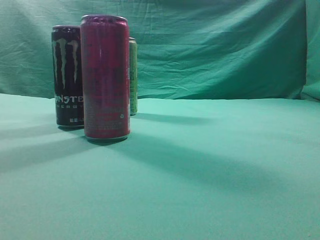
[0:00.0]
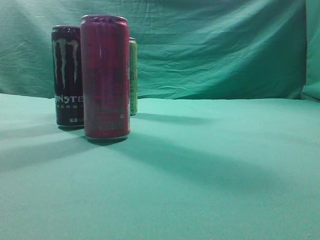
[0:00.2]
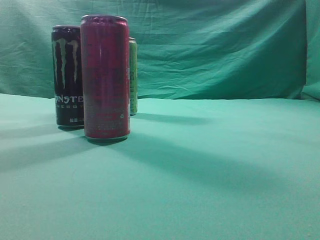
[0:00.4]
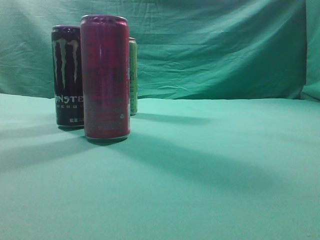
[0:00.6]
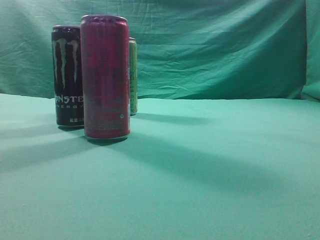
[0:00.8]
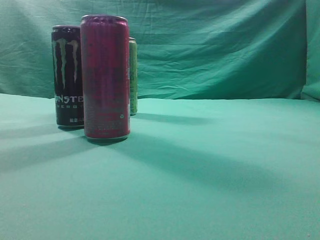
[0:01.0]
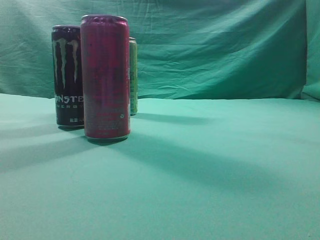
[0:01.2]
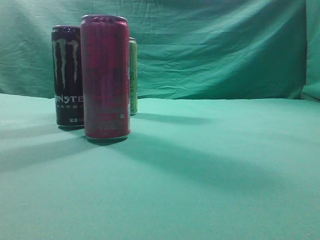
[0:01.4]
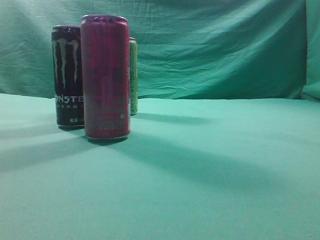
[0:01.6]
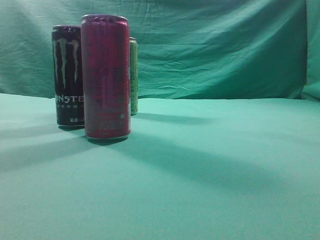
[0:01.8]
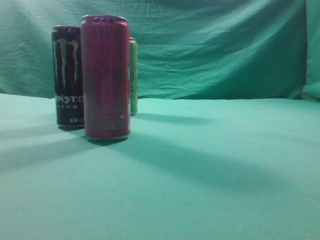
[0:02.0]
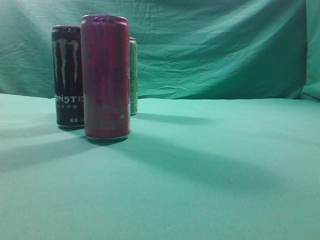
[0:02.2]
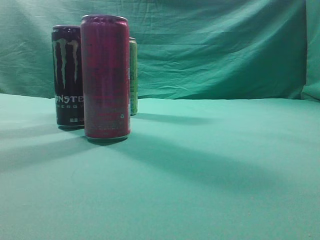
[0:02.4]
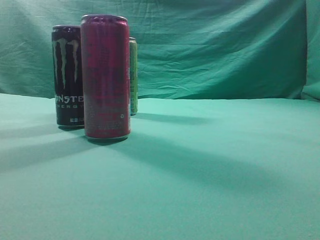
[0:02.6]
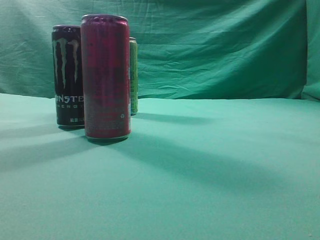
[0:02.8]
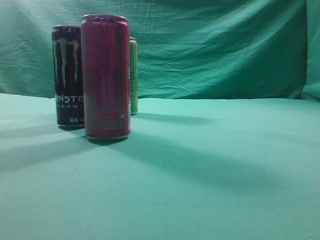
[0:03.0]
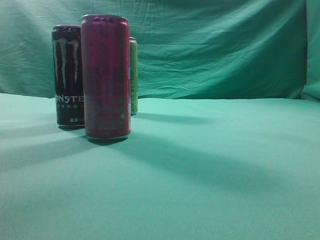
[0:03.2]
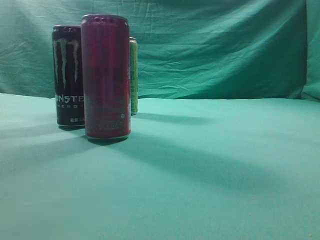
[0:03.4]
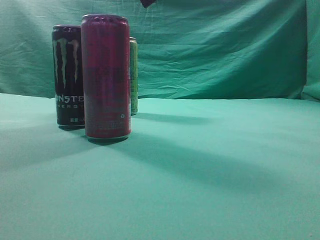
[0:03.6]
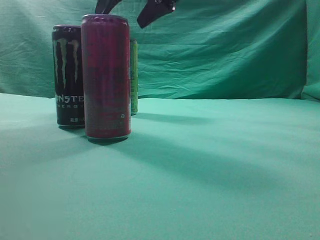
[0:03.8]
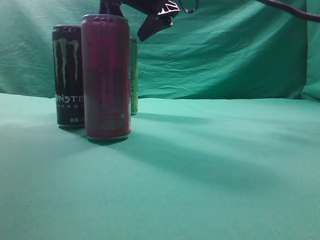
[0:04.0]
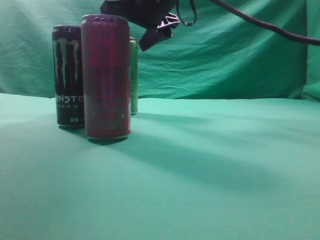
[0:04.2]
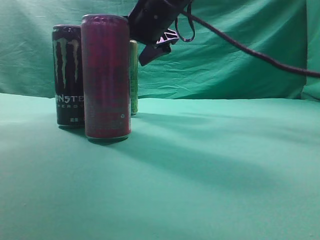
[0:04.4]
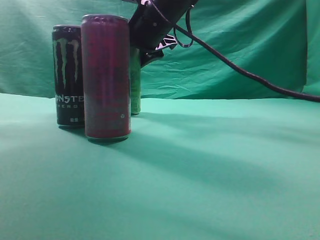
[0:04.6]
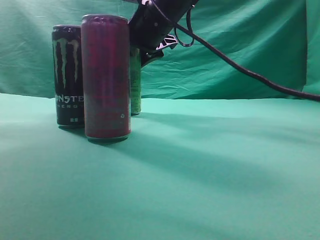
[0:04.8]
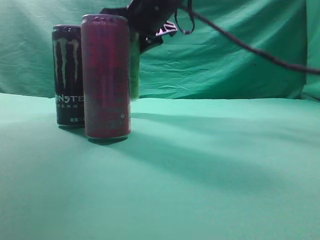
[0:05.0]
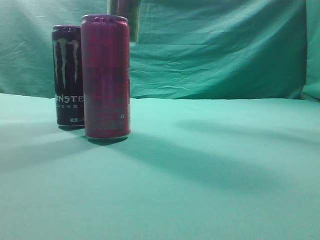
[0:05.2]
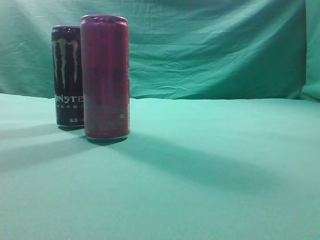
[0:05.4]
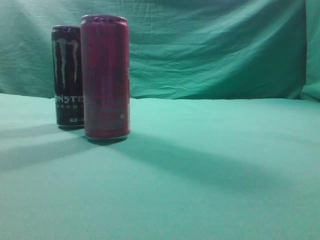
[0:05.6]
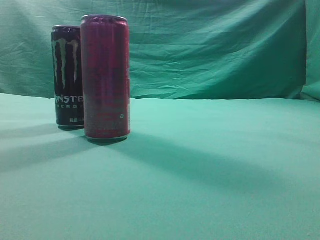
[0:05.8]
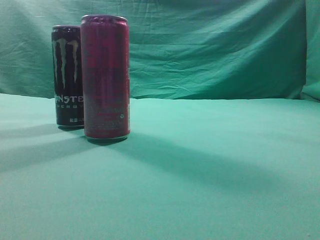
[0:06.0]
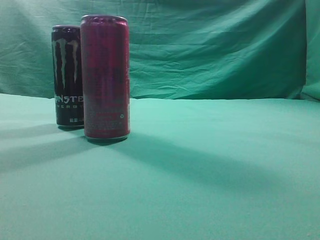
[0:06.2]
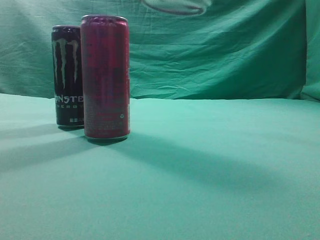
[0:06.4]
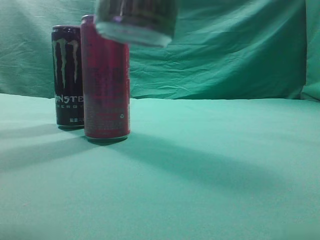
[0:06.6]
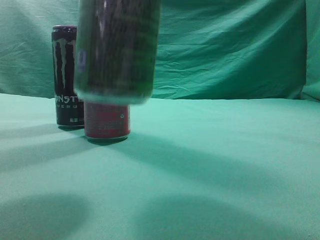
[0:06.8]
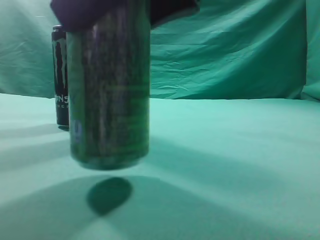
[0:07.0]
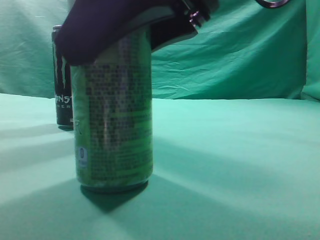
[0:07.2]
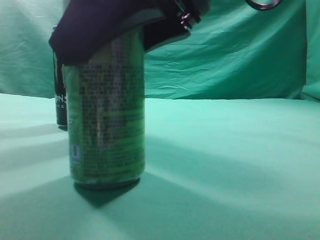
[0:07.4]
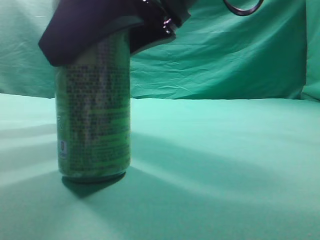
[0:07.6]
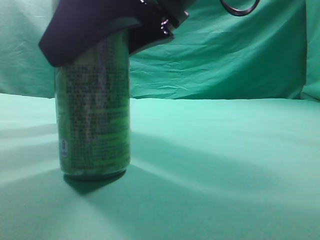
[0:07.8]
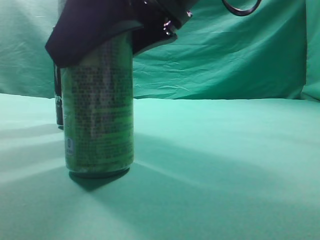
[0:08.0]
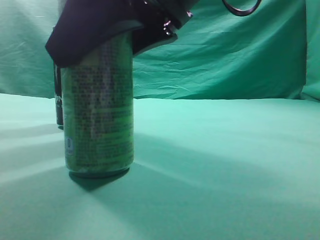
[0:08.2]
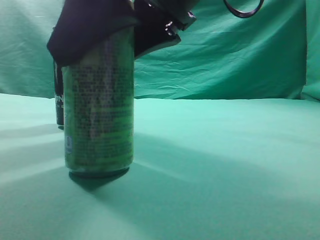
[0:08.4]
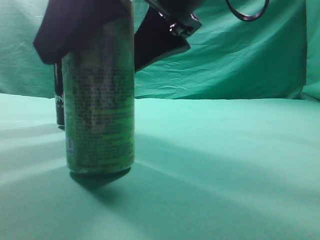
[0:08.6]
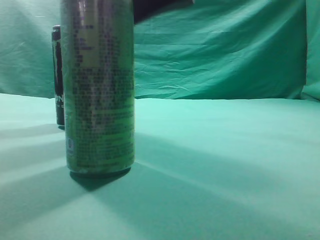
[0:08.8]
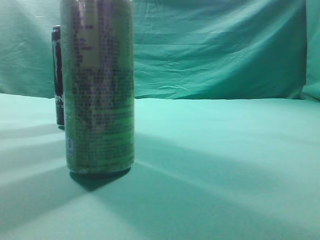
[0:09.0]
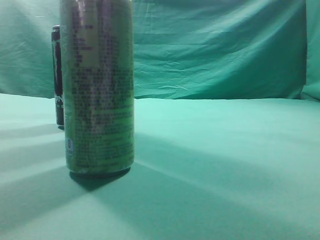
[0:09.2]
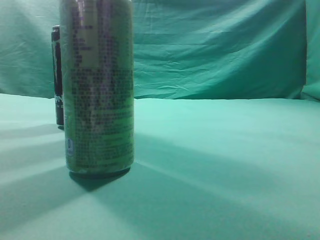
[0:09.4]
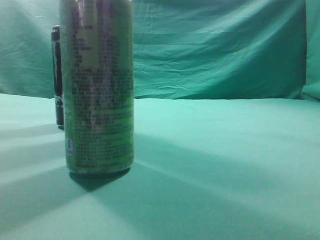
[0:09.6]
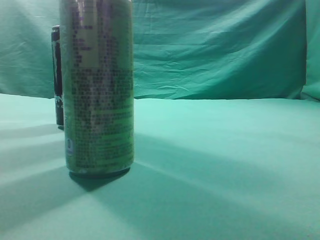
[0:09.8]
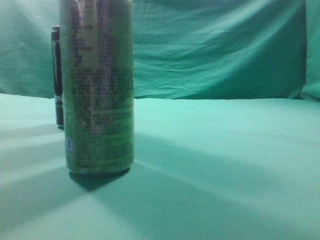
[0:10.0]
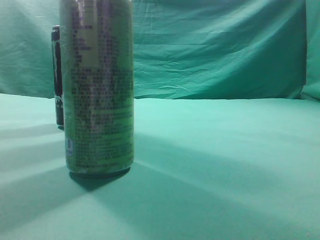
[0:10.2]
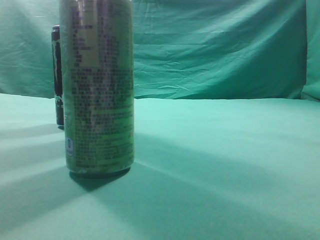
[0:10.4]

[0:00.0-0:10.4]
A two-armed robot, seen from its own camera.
Task of the whole recording: move one drink among three beverages.
Step, 0:00.0 to 0:05.0: Grasp the beverage bottle placed at the back of the desk.
Step, 0:05.2 to 0:09.0: Place the beverage bottle to the front of the table.
0:01.4 to 0:03.0: The right gripper heads forward, to the left and upward, covering roughly 30 cm.
0:03.0 to 0:04.4: The right gripper moves forward, downward and to the left, approximately 25 cm, and opens up.
0:04.4 to 0:06.0: The right gripper travels backward, upward and to the right by roughly 35 cm, and closes.
0:06.0 to 0:07.4: The right gripper heads downward and to the left, covering about 20 cm.
0:07.4 to 0:09.0: The right gripper is displaced upward by about 10 cm.
